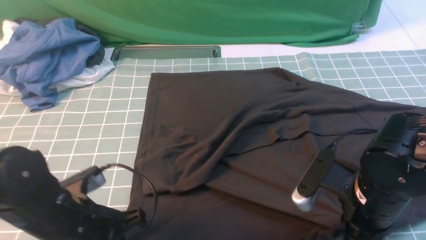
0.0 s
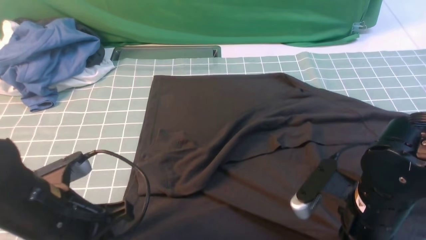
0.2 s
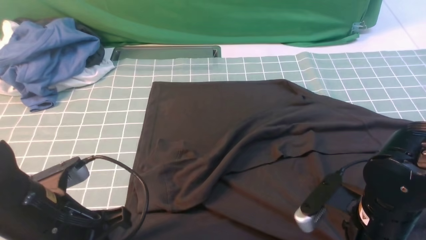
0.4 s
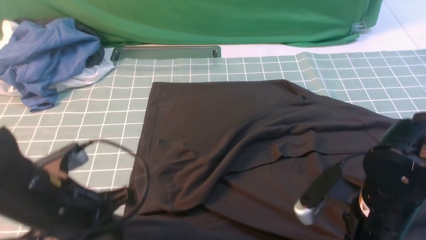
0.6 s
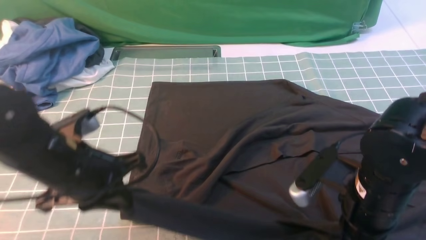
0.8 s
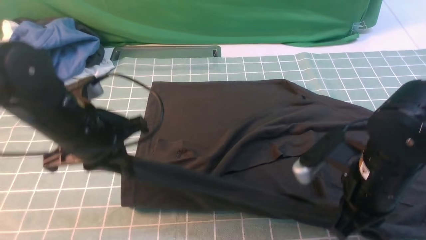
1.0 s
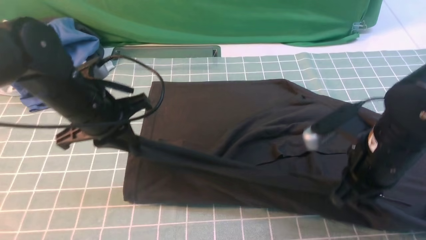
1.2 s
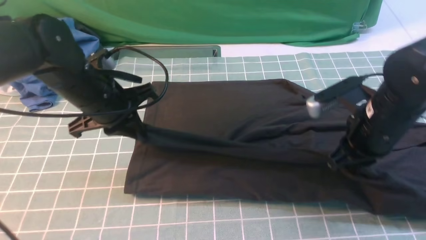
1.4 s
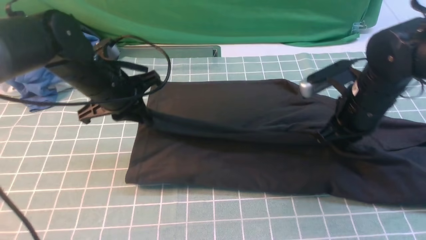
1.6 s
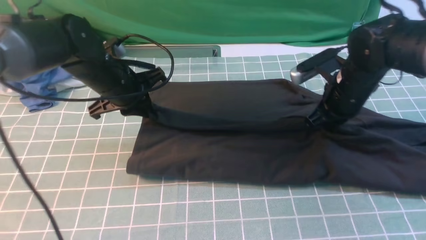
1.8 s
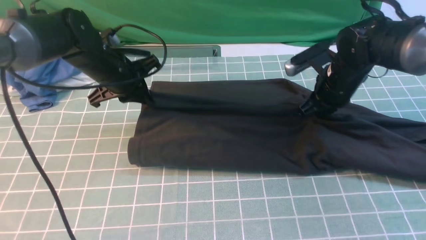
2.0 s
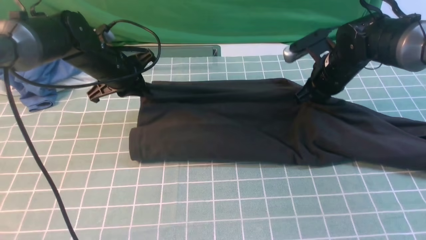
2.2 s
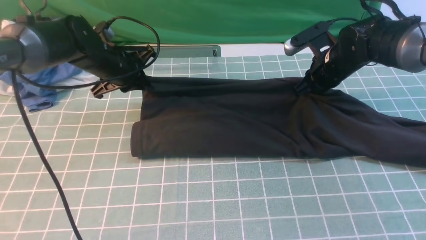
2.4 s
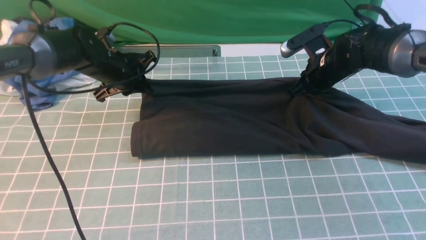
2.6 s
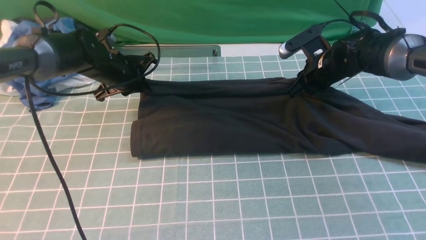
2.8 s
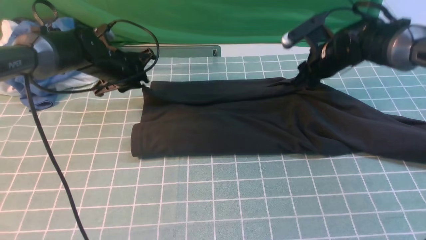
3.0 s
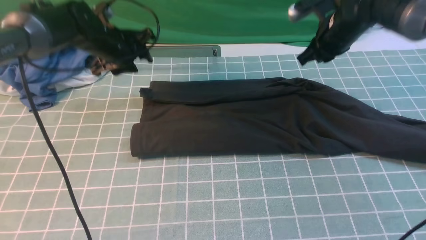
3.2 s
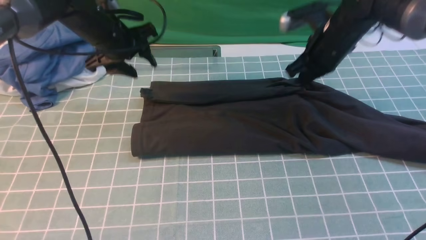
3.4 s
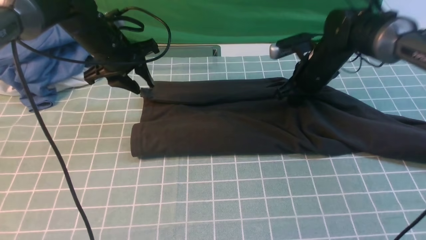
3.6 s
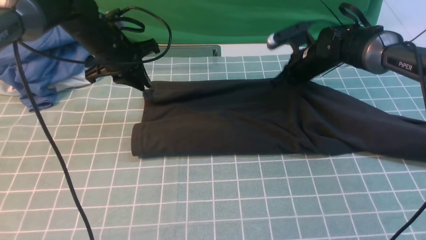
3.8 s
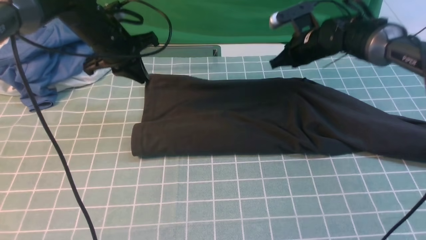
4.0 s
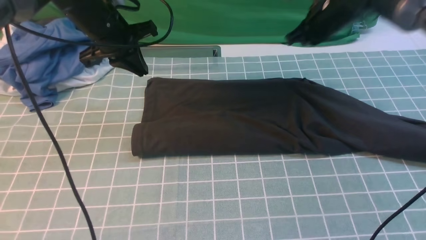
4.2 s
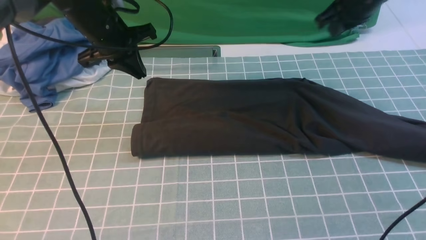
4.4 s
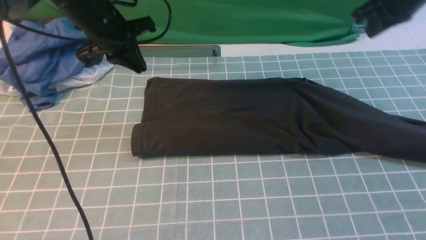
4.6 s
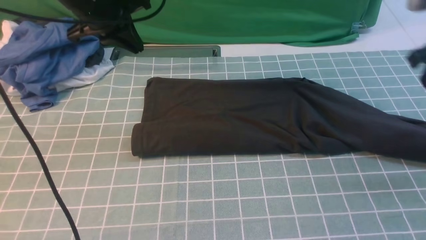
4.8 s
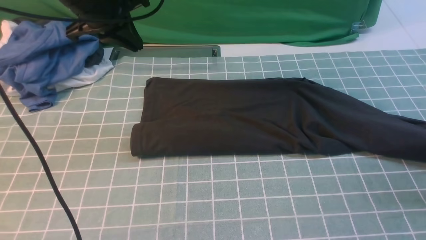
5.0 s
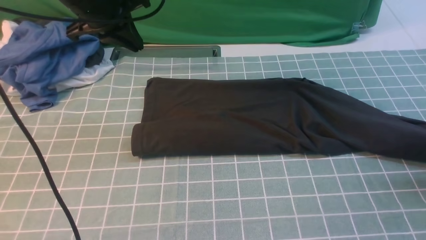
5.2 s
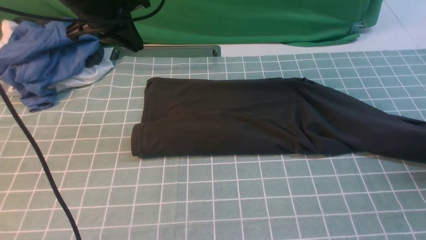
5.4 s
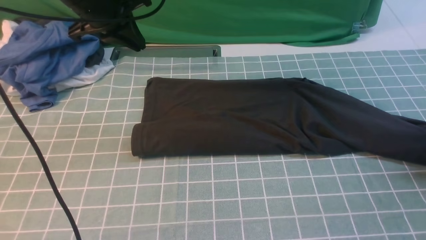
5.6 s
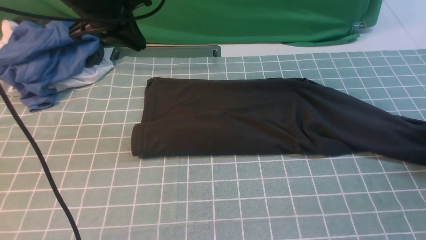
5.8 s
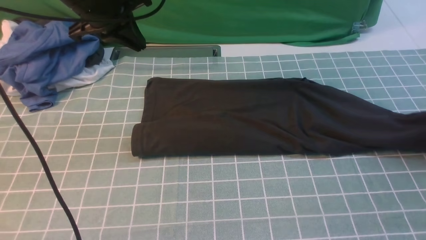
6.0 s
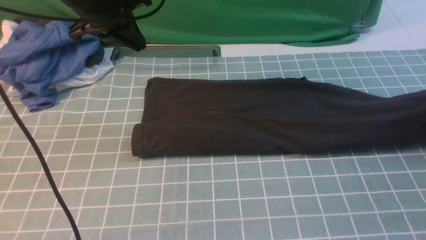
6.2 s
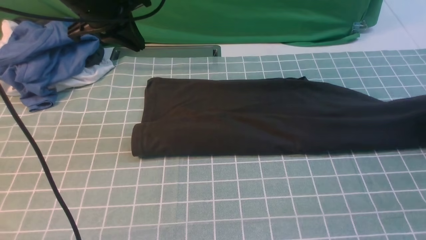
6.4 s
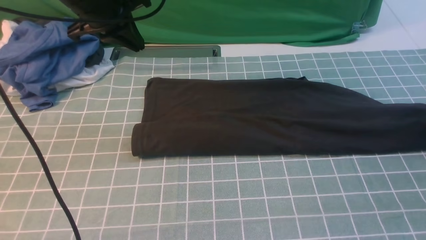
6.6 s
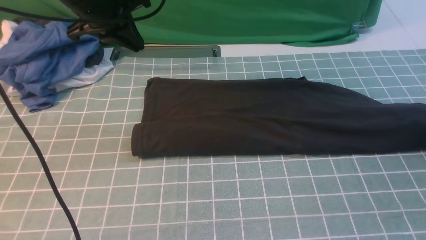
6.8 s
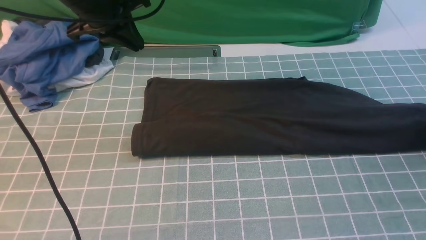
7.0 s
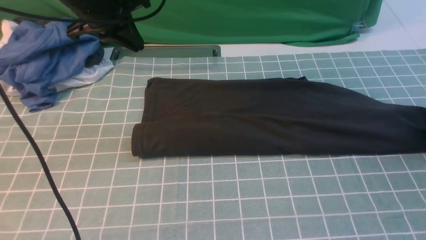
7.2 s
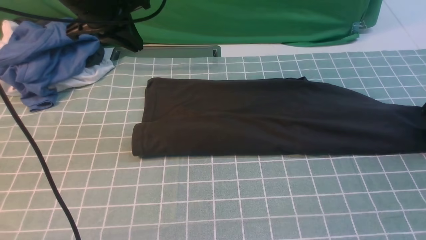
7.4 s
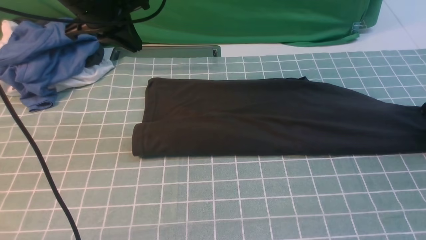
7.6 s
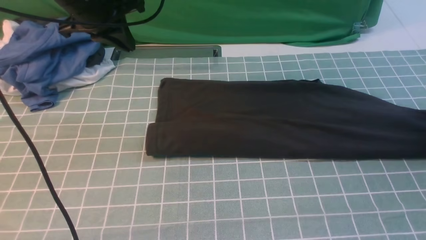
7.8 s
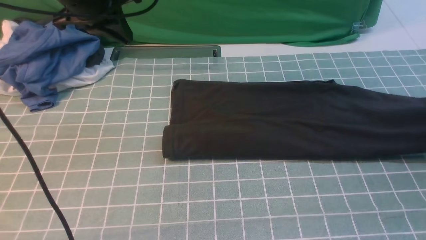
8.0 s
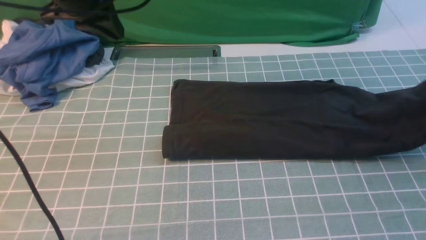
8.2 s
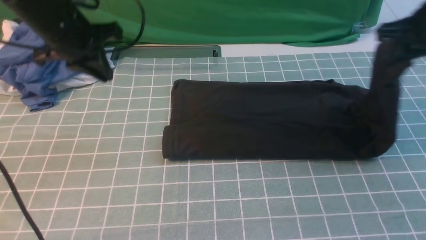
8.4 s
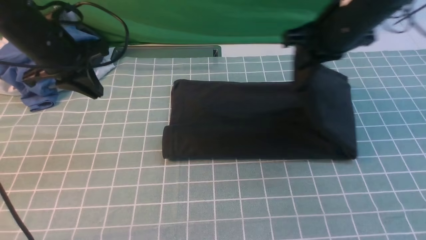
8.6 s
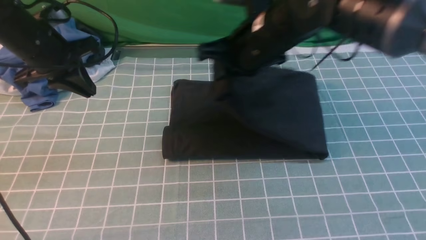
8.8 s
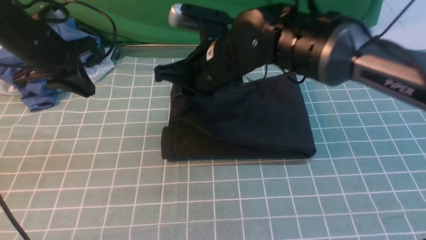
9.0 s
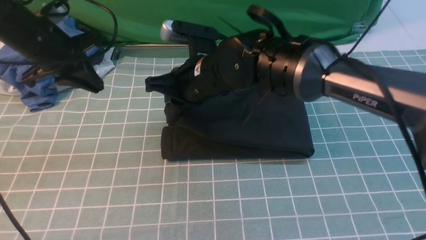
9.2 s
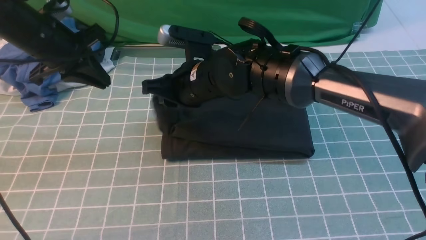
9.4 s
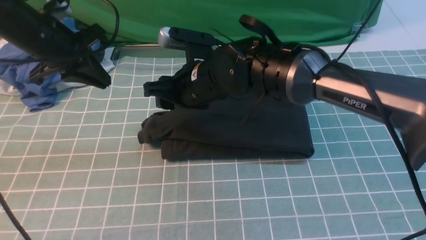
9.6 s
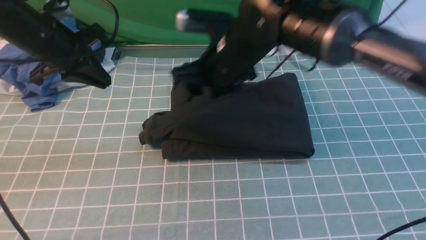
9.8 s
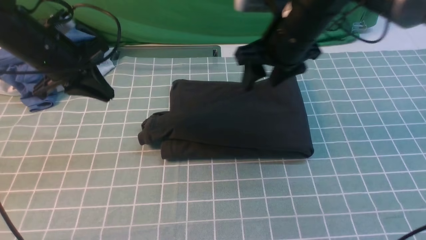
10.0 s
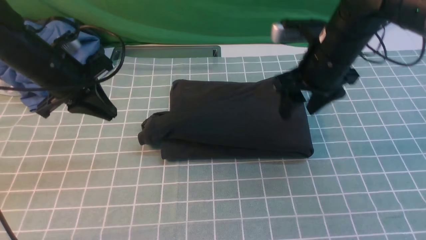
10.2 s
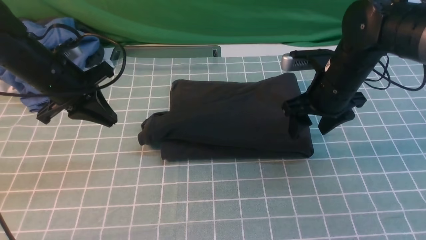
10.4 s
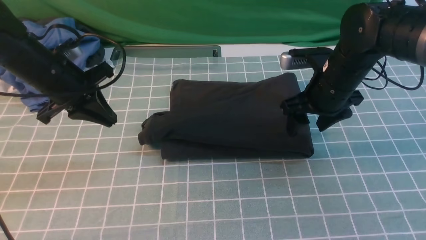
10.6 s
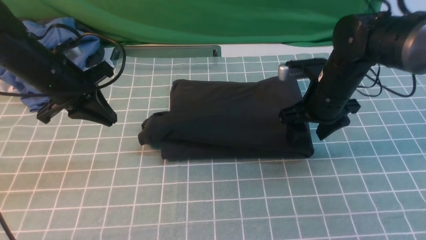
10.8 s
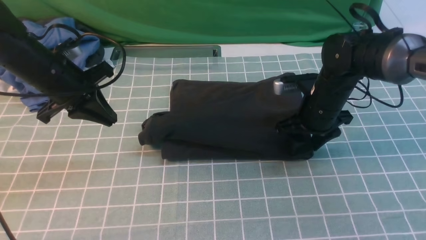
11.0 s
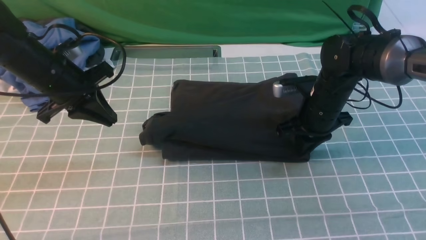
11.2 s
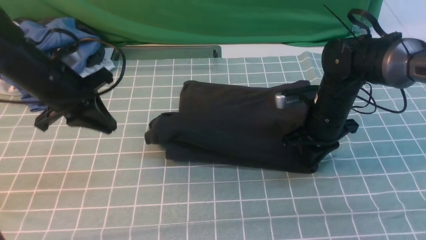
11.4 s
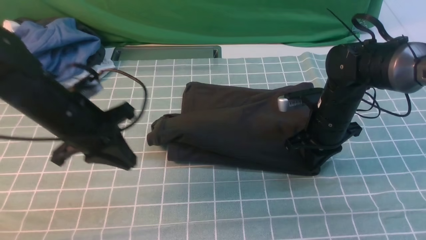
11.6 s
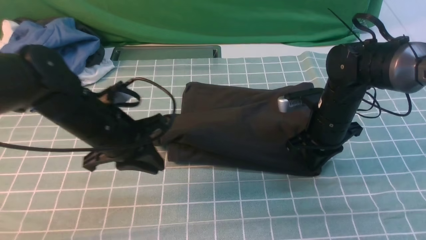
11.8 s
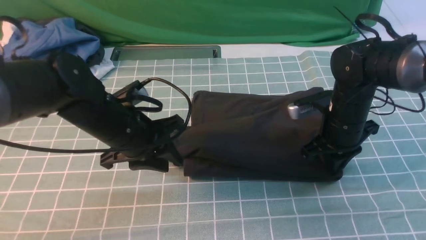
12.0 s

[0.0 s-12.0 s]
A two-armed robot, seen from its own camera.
Step, 1.0 to 4.8 s: use both arms to drag the lower edge of the fabric forward and fold it over the upper edge.
Step, 5.0 to 7.8 s: use the right arm to clamp the right edge of the fabric.
Step, 8.0 to 9.6 s: use the right arm to drag the right edge of the fabric to the left and folds it over the left edge.
0.0 to 1.6 s: The grippers both shift forward by roughly 15 cm.
1.6 to 3.0 s: Both grippers travel together forward, about 10 cm. The left gripper opens.
3.0 to 4.4 s: Both grippers move upward, some 10 cm. The left gripper closes its fingers. The right gripper closes.
4.4 to 6.0 s: The left gripper travels upward by approximately 5 cm; the right gripper travels to the right, downward and backward by approximately 25 cm, and opens, then closes again.
6.0 to 7.6 s: The right gripper changes place by some 5 cm, and opens, then closes once more.
7.6 to 9.0 s: The left gripper moves to the left, approximately 10 cm. The right gripper heads to the left, covering approximately 50 cm.
9.0 to 10.4 s: The right gripper moves to the right, some 15 cm, and opens.
10.4 to 12.0 s: The left gripper goes roughly 15 cm to the right and backward, and opens up, while the right gripper is displaced downward by some 5 cm, and closes up.

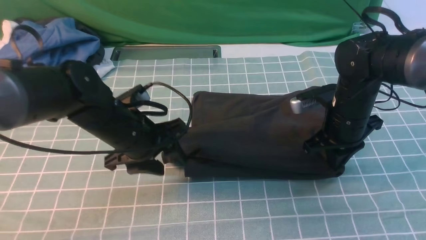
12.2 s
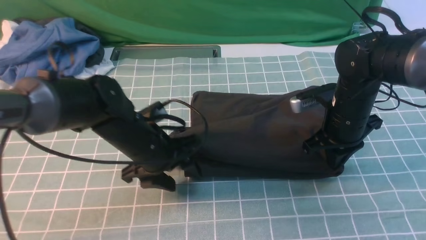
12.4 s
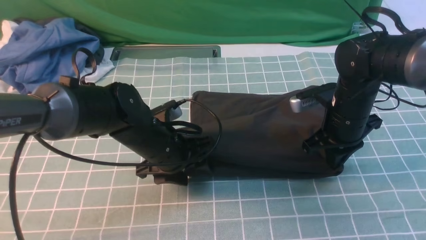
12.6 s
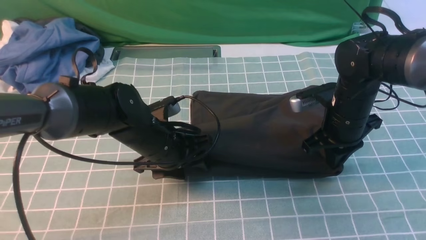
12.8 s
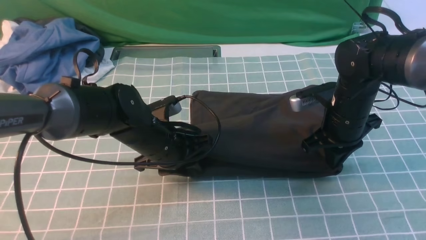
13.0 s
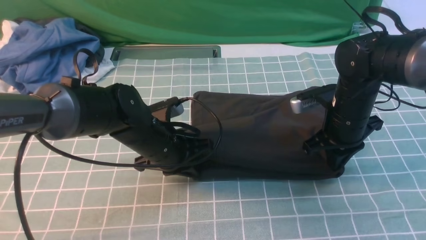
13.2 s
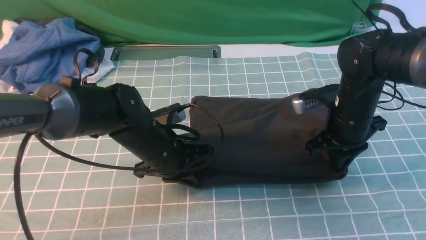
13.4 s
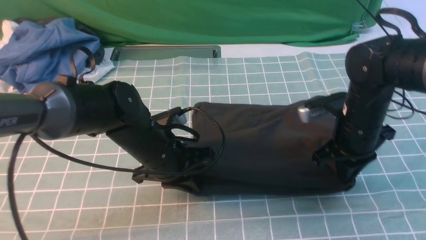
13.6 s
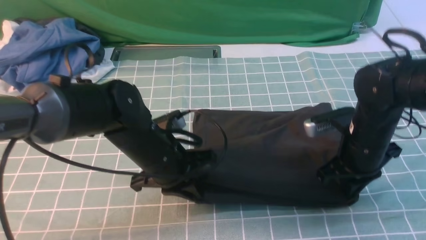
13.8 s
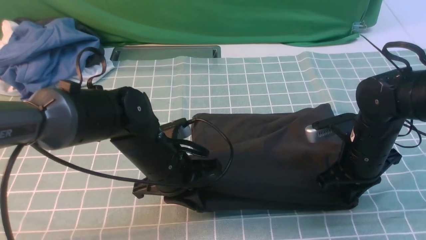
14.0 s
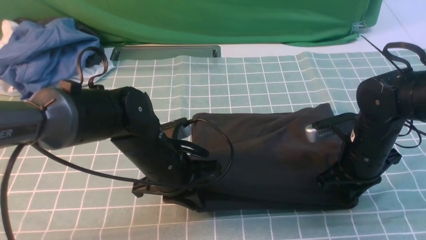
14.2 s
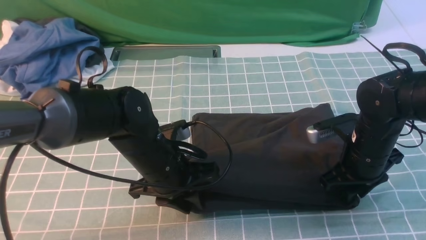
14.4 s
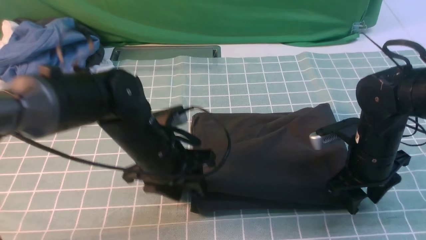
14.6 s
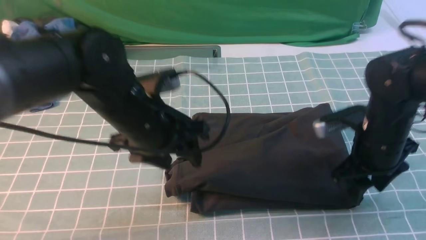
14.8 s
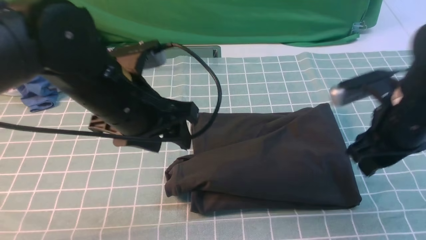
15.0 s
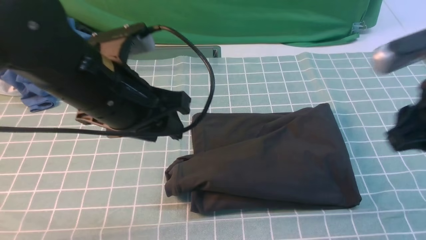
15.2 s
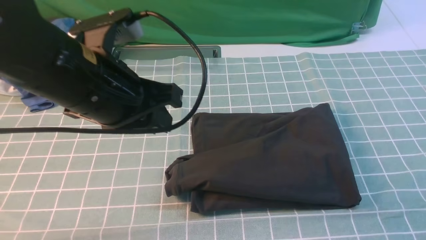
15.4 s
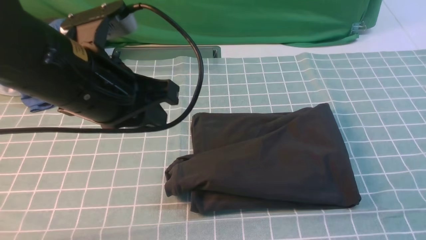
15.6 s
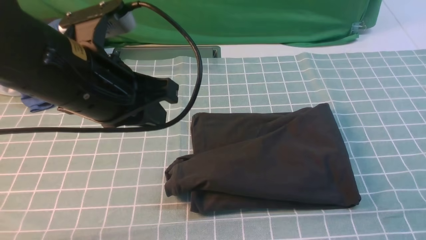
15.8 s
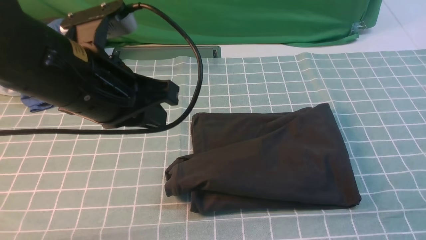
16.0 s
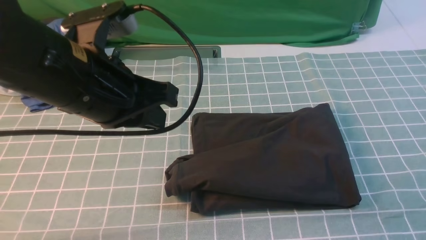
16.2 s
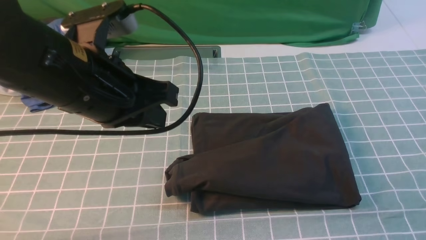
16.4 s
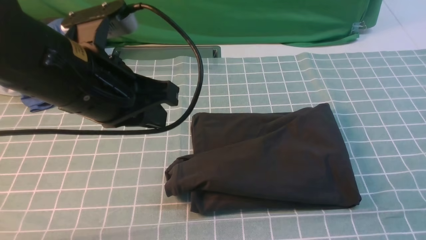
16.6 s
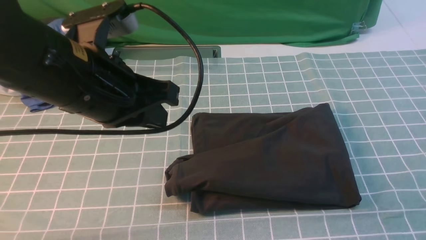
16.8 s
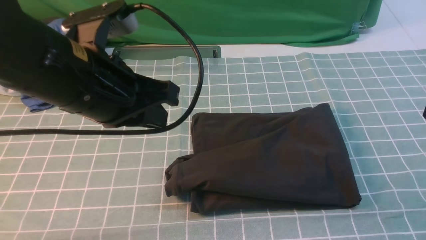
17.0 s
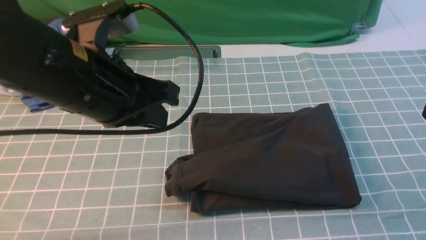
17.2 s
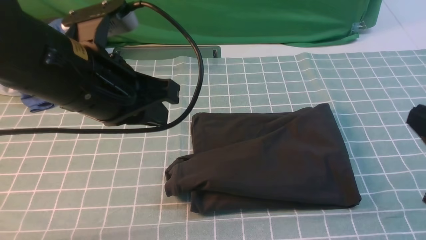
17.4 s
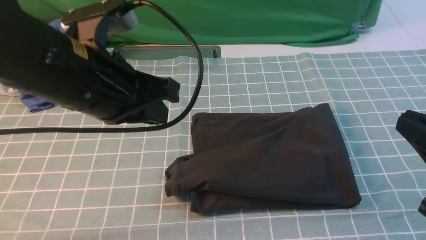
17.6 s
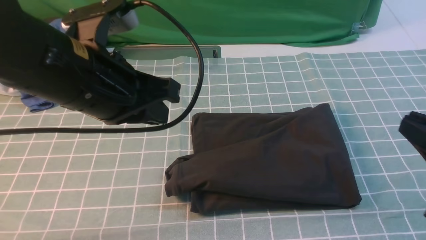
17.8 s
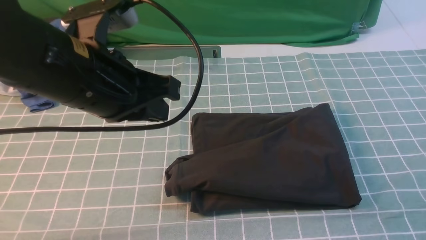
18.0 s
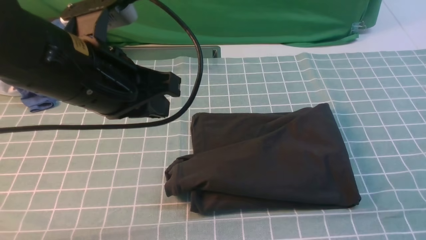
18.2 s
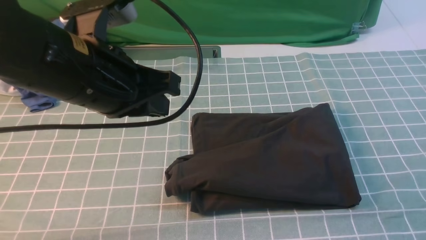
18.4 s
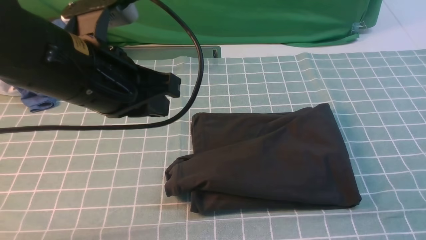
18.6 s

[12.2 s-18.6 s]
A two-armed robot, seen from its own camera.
12.2 to 13.8 s: The left gripper changes place by roughly 5 cm, and closes.
13.8 to 15.4 s: The left gripper goes approximately 15 cm upward, and opens and closes again; the right gripper travels upward and backward by about 30 cm, and opens, then closes once more.
15.4 to 17.0 s: The right gripper is displaced downward by about 10 cm.
17.0 to 18.6 s: The right gripper is displaced downward and backward by approximately 10 cm.
